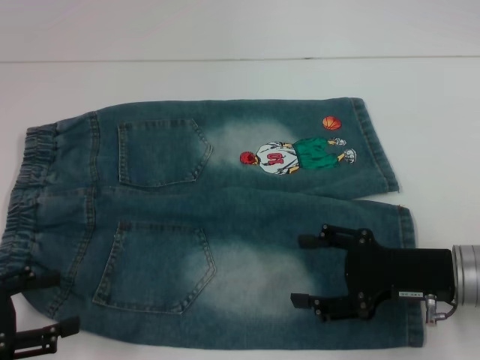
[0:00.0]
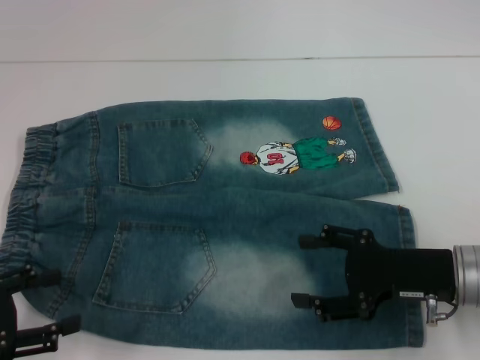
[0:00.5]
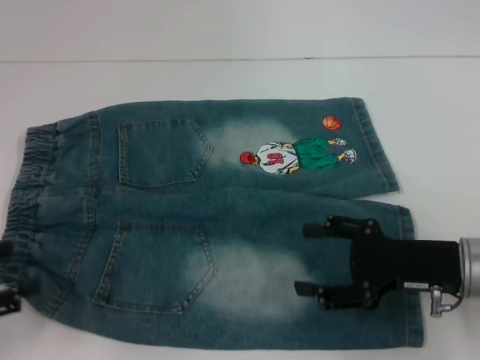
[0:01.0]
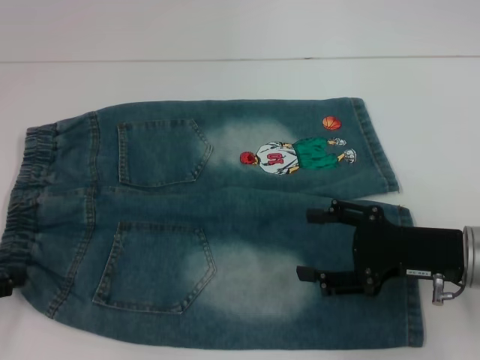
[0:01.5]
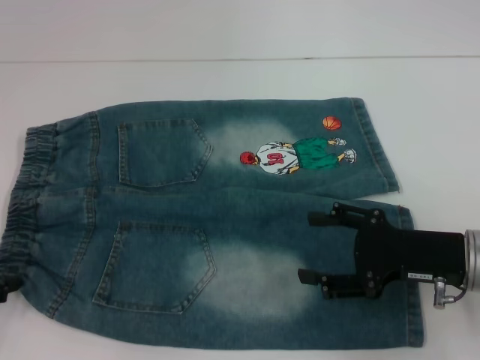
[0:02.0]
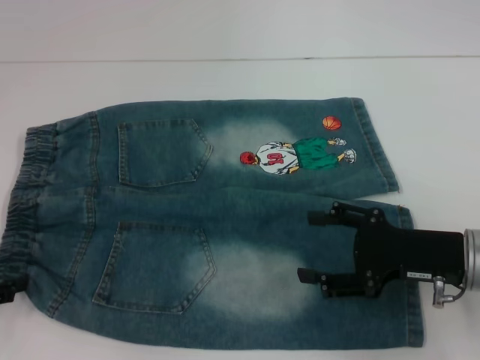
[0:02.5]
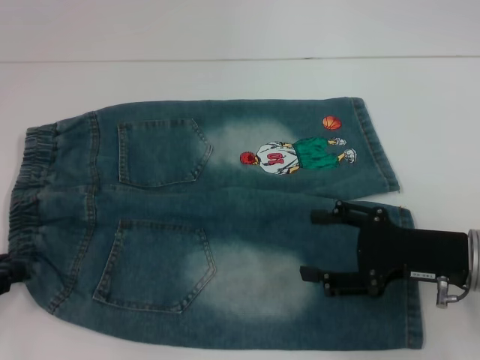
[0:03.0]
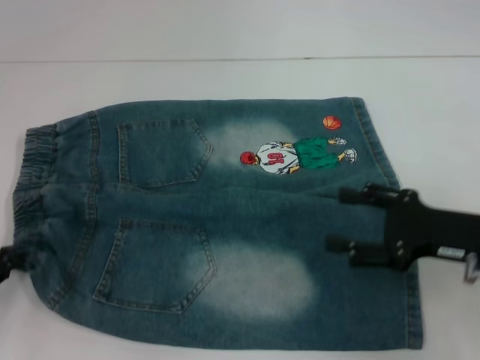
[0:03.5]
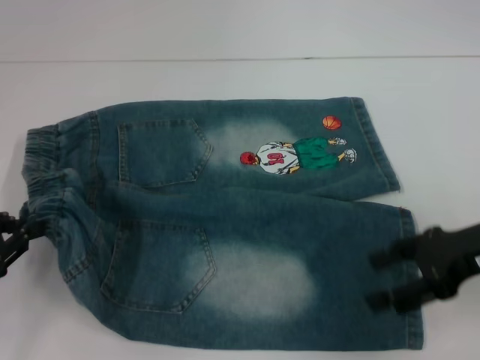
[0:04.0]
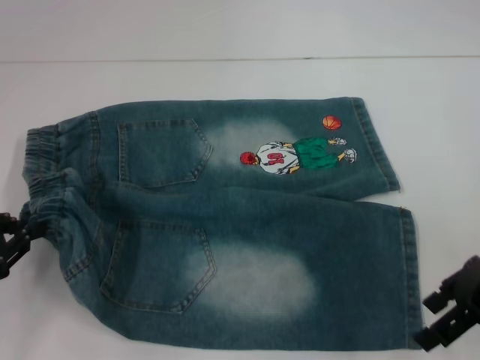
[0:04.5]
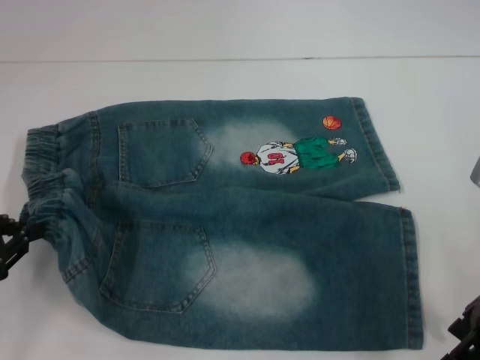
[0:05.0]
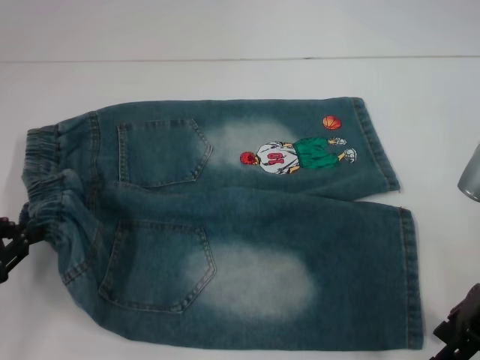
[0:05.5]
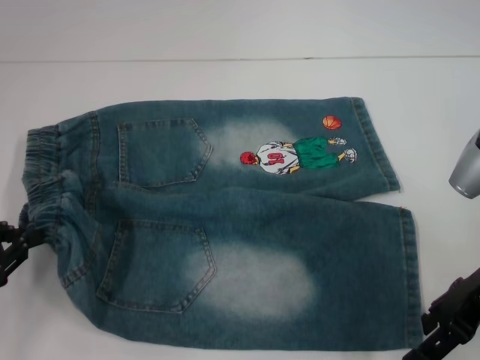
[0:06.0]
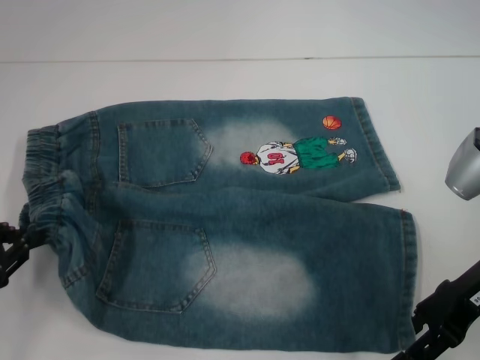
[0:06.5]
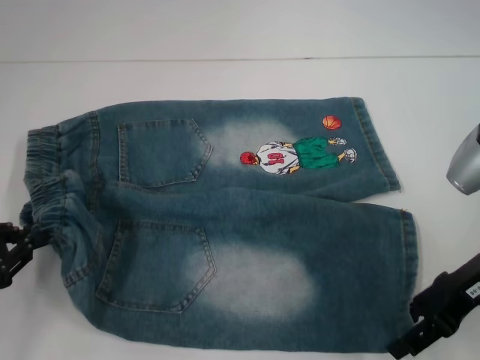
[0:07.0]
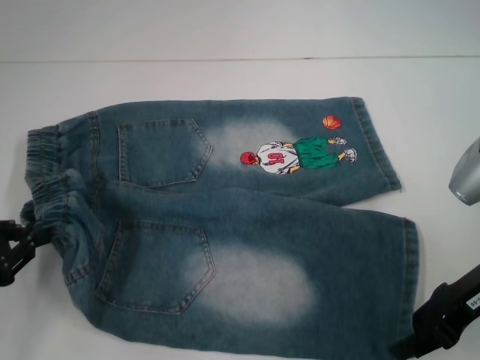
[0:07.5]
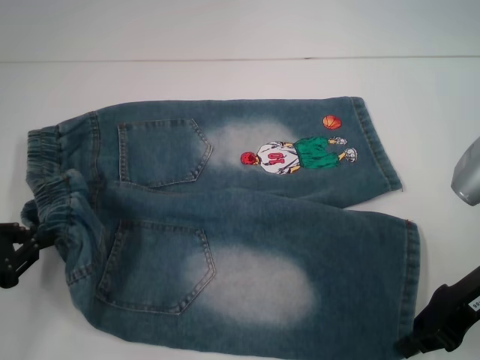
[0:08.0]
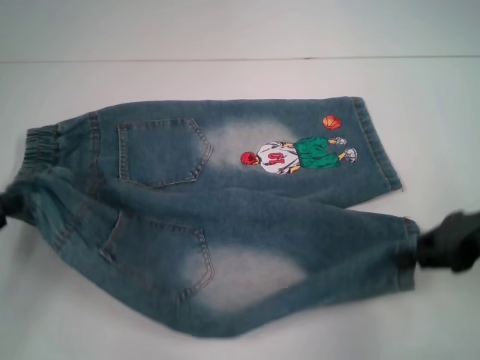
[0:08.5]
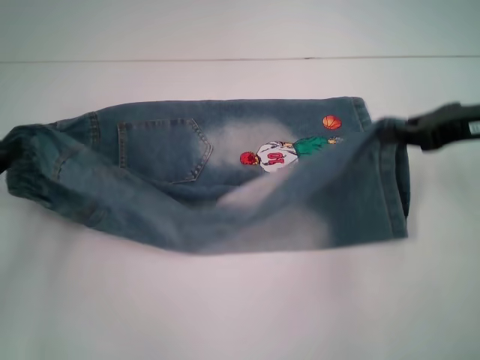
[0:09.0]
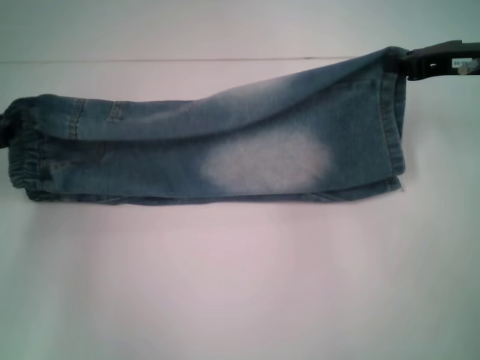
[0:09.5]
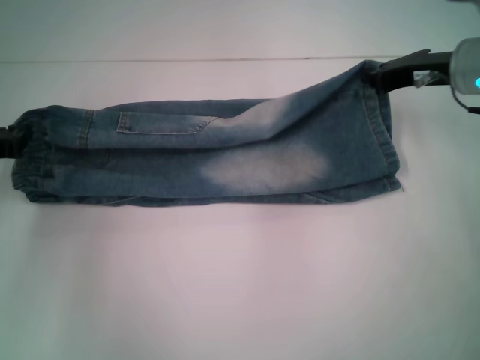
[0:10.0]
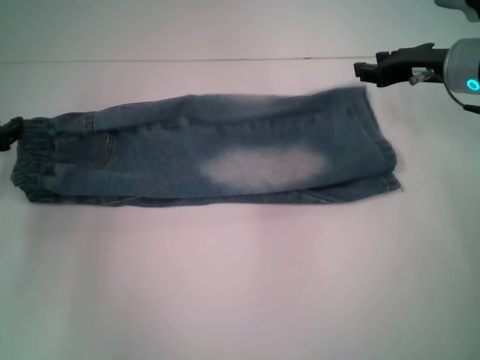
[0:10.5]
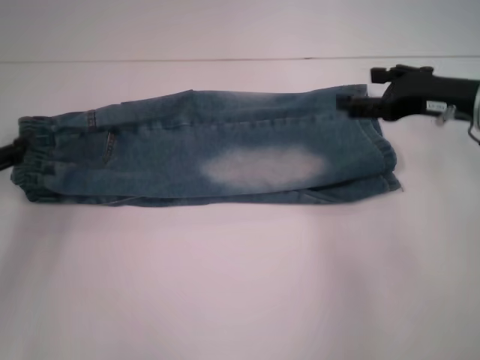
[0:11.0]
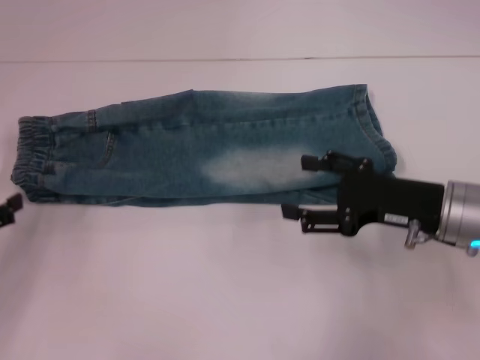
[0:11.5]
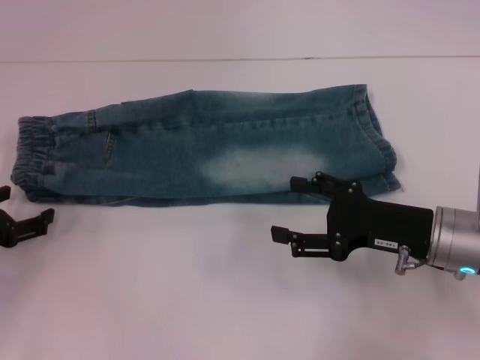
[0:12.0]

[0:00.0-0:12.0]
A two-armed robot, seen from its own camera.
Step, 0:00.0 to 0:03.0: Hold the lower left waistband with your left hand.
Step, 0:03.5 to 0:07.5: Grab the lower right pant leg with your right hand.
Step, 0:08.0 to 0:10.5: Fold upward with your right hand.
0:02.0 to 0:04.0: The left gripper closes its fingers. Meanwhile the right gripper travels upward by approximately 5 cm.
0:06.0 to 0:08.0: The right gripper closes.
0:08.0 to 0:10.0: Both grippers move forward, about 10 cm.
0:10.0 to 0:12.0: The left gripper heads backward, covering approximately 5 cm, and opens its fingers. Meanwhile the right gripper goes approximately 15 cm backward and downward, and opens its fingers.

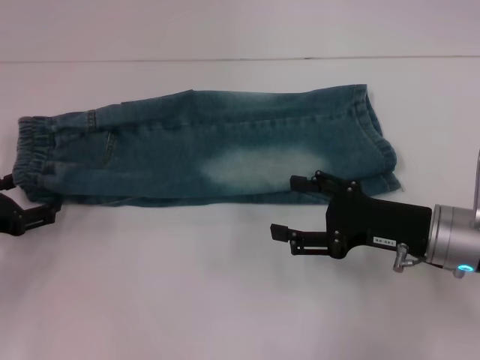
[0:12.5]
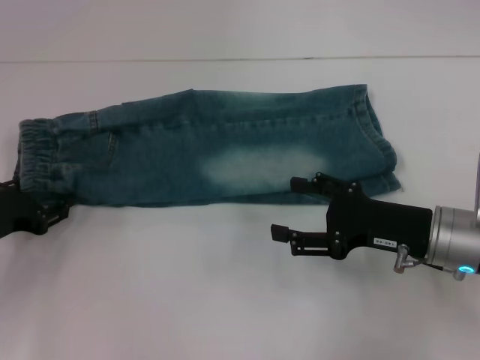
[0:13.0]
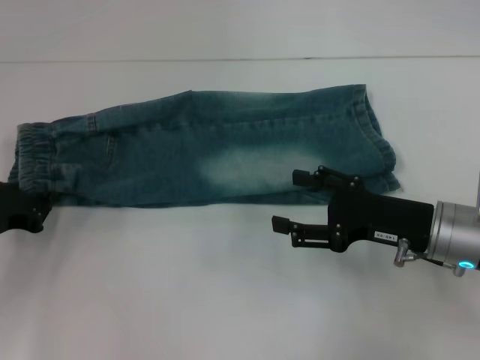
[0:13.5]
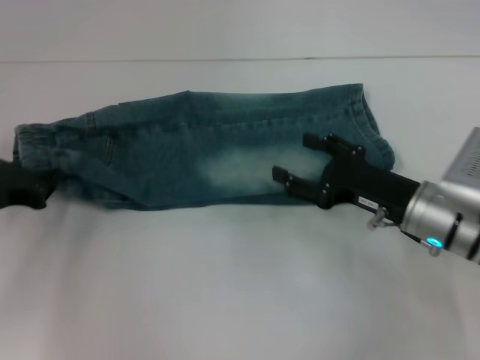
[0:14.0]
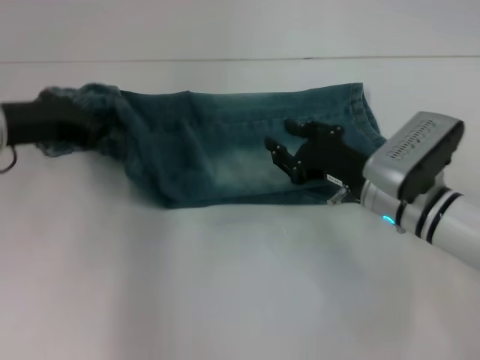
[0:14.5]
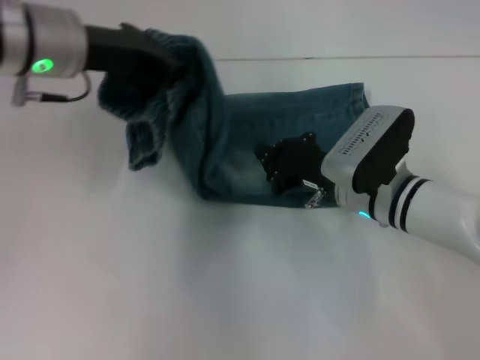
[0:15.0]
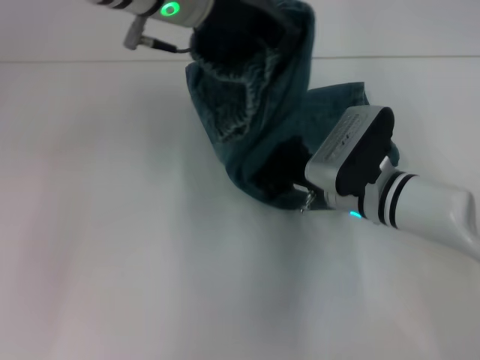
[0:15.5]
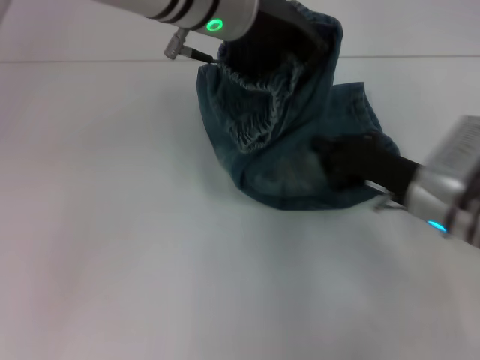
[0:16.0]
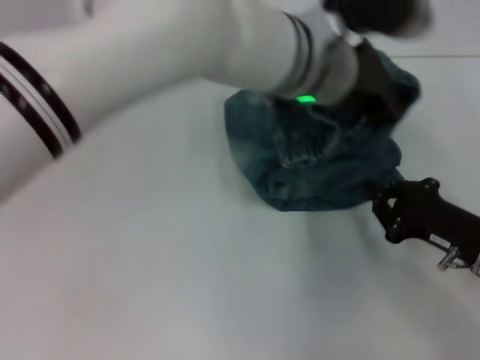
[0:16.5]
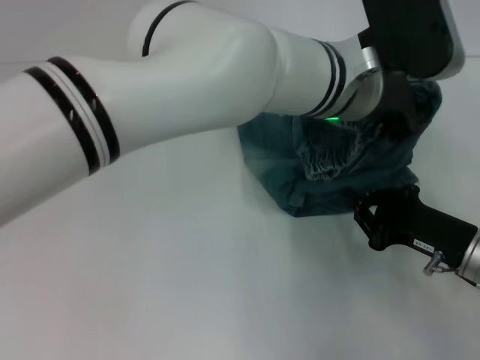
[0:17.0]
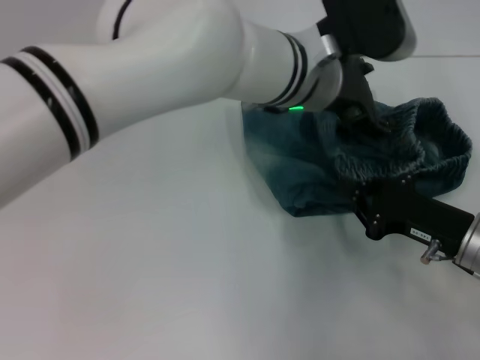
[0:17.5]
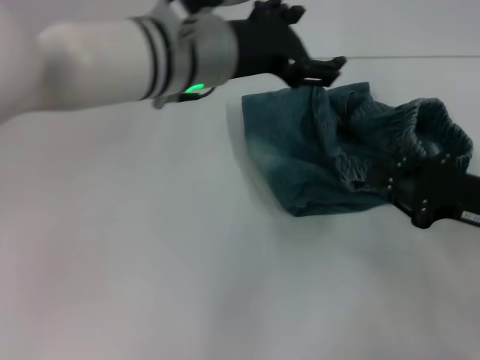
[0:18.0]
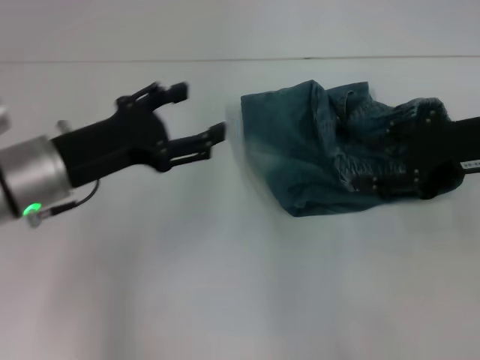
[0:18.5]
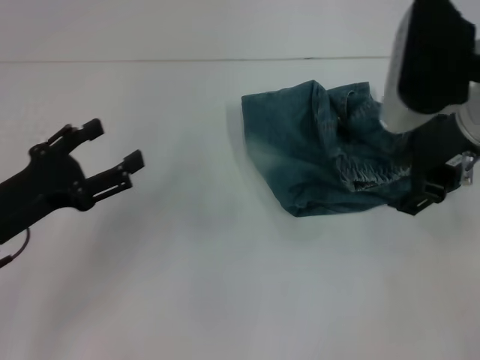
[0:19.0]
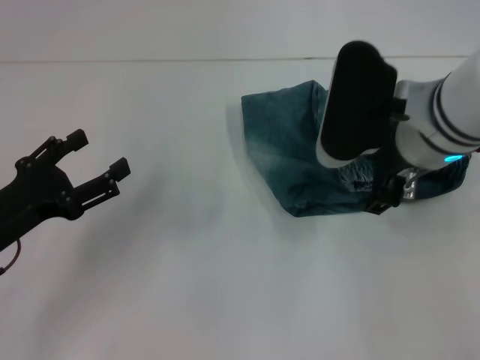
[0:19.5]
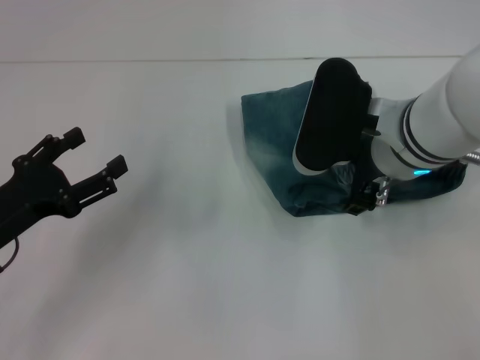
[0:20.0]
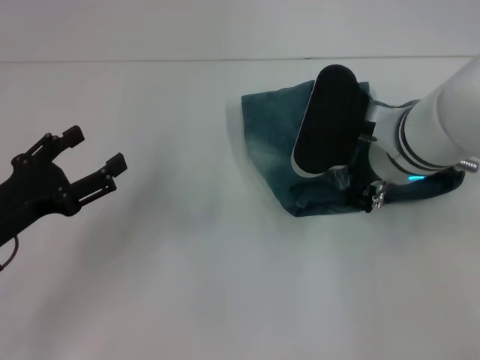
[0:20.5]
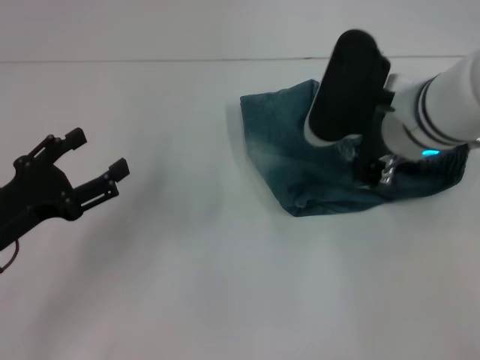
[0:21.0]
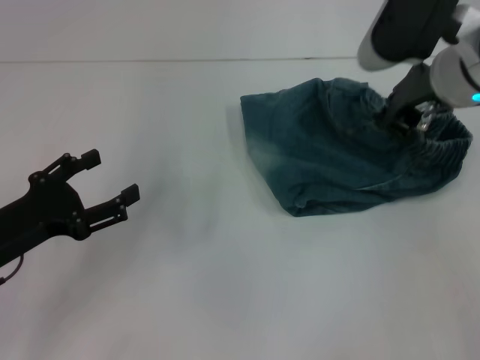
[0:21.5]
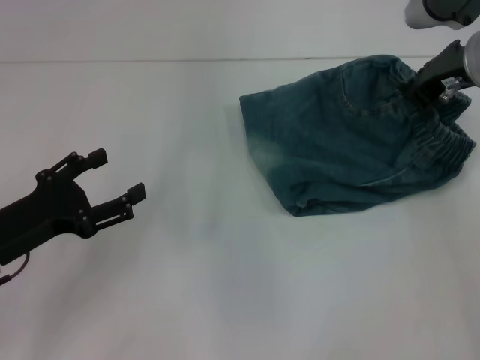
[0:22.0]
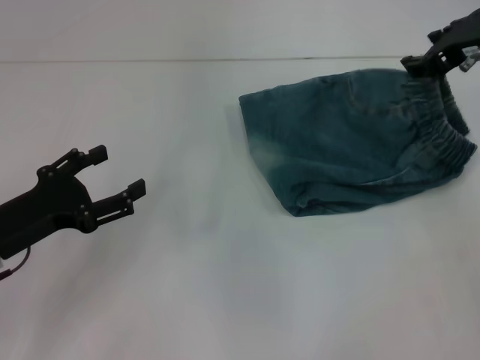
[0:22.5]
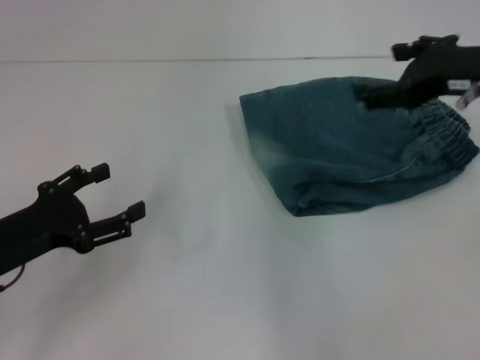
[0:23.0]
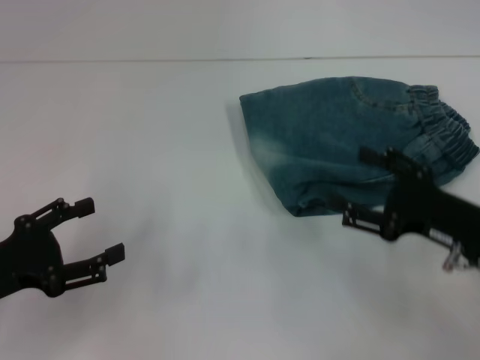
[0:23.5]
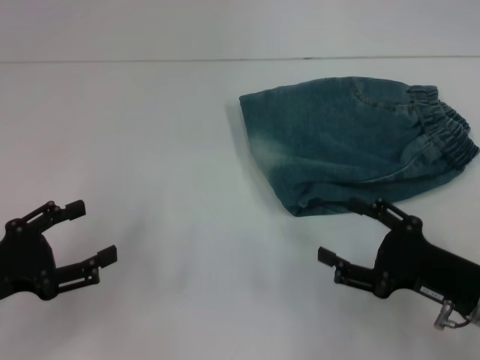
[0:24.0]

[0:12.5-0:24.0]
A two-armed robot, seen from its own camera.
Step, 0:14.0 to 0:15.5: Press the middle of the pants with your right hand.
Step, 0:16.0 to 0:17.5: Fold to the right with your left hand.
Step, 0:18.0 to 0:22.0: Adjust the pants with your right hand.
0:12.5 to 0:14.5: The right gripper shifts roughly 5 cm to the left. The left gripper is displaced upward, to the right and forward by about 15 cm, and closes up.
0:14.5 to 0:16.5: The left gripper moves to the right, some 30 cm; the right gripper goes some 15 cm to the right and backward, and closes.
0:16.5 to 0:18.5: The right gripper moves upward, about 15 cm, and opens. Meanwhile the left gripper goes approximately 25 cm to the left, and opens its fingers.
0:18.5 to 0:20.0: The left gripper goes approximately 10 cm to the left, backward and downward. Meanwhile the right gripper shifts approximately 10 cm to the left.
0:20.0 to 0:22.0: The right gripper shifts roughly 10 cm to the right and forward, and closes its fingers.
0:22.0 to 0:24.0: The left gripper changes place by approximately 5 cm. The right gripper travels backward and downward by some 25 cm, and opens.

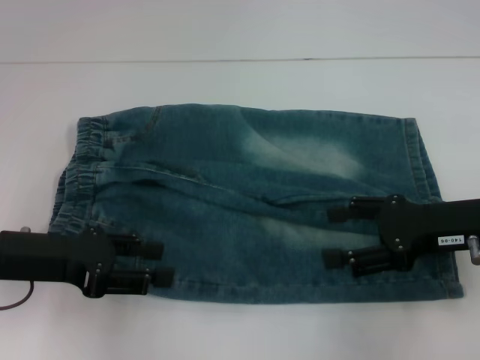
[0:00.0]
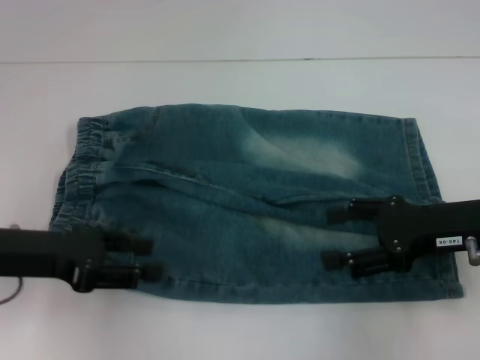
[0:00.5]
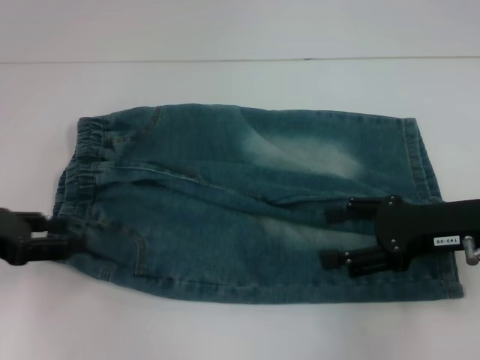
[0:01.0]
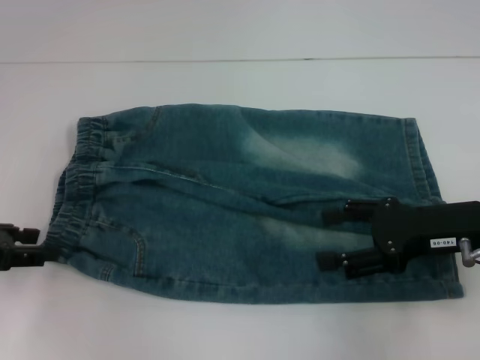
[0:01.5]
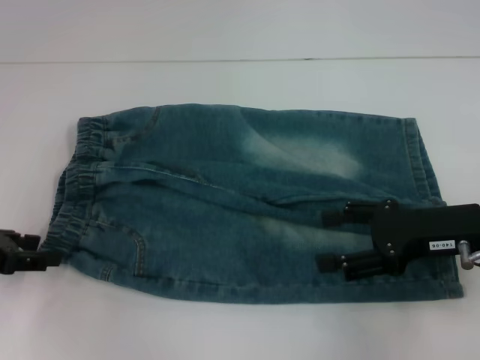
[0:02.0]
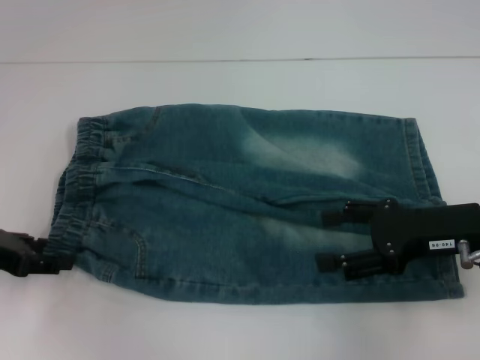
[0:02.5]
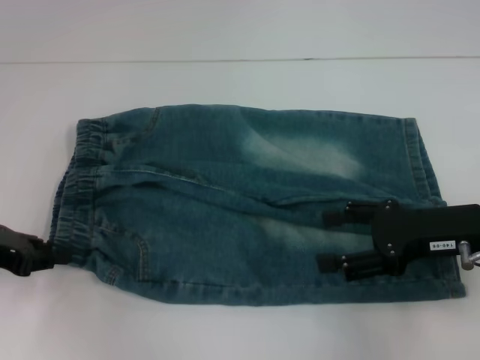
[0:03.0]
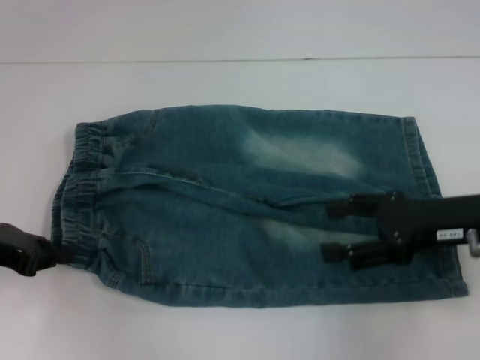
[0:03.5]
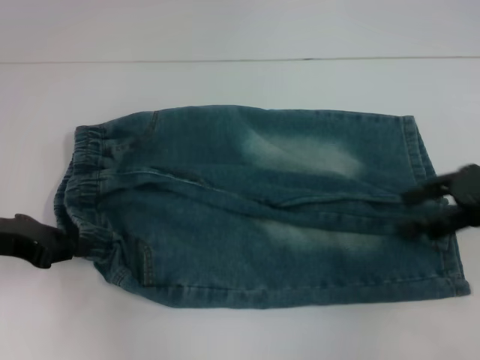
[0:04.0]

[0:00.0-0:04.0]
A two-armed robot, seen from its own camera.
Step, 0:00.0 to 0:03.0: Hold the lower left waistband with your left hand.
0:00.0 to 0:02.0: The left gripper goes roughly 10 cm to the left.
0:02.0 to 0:04.0: The right gripper shifts some 10 cm upward and to the right, while the left gripper closes up.
